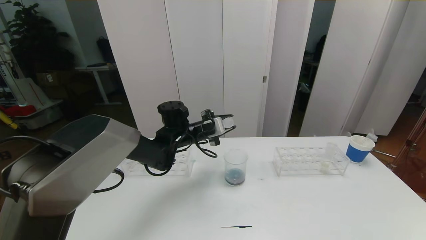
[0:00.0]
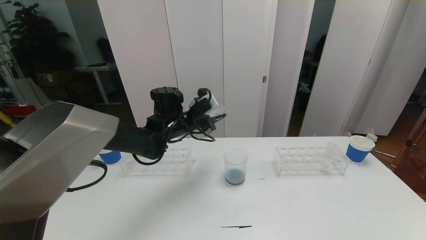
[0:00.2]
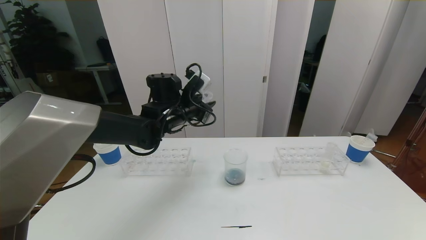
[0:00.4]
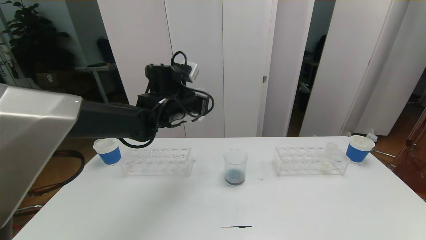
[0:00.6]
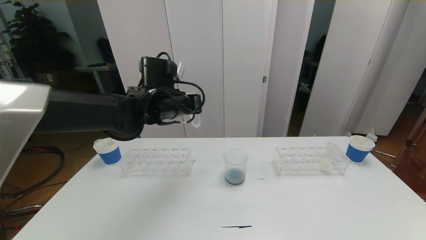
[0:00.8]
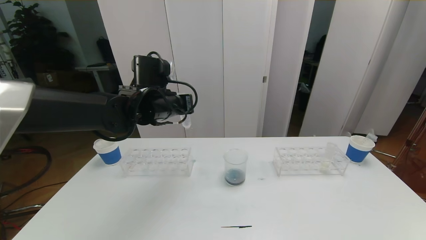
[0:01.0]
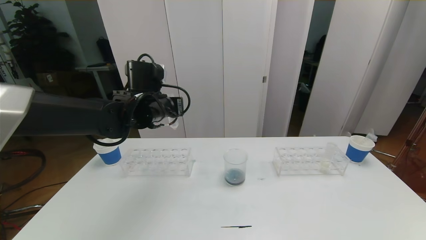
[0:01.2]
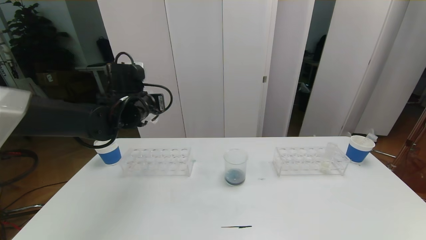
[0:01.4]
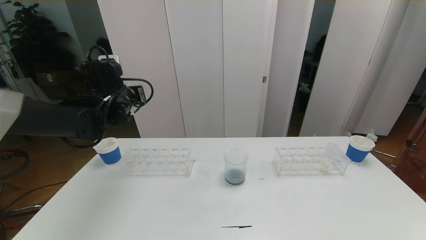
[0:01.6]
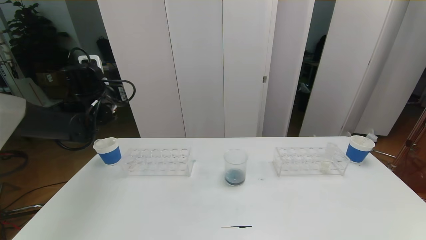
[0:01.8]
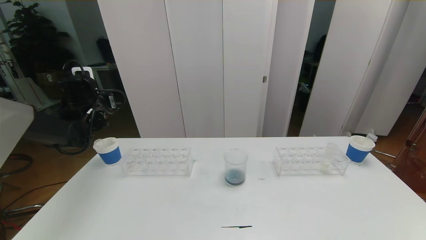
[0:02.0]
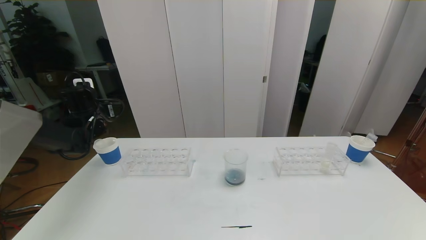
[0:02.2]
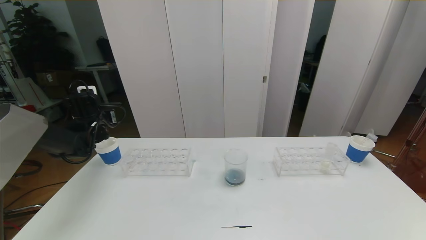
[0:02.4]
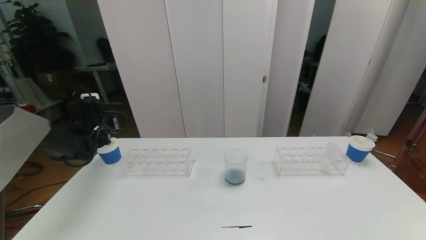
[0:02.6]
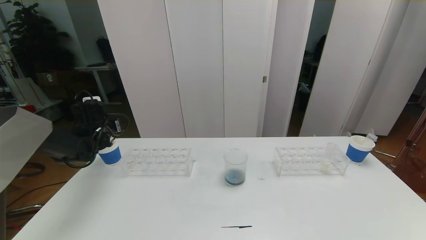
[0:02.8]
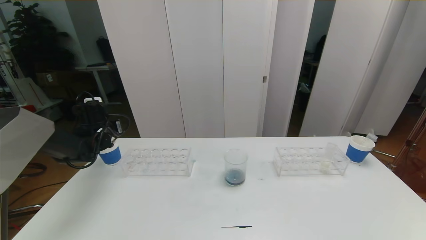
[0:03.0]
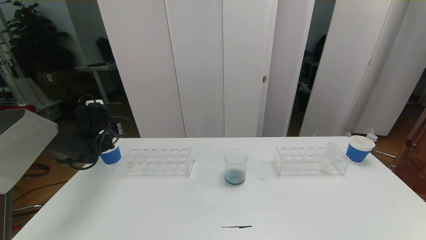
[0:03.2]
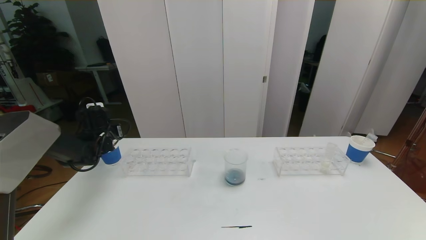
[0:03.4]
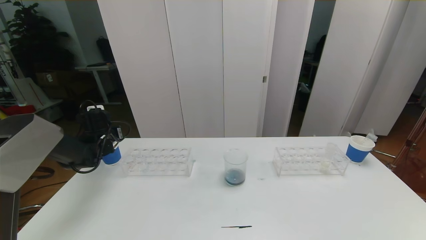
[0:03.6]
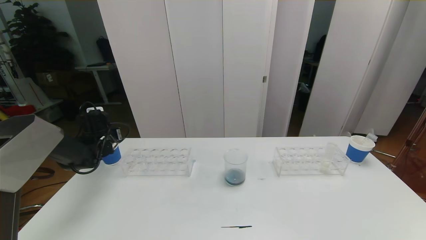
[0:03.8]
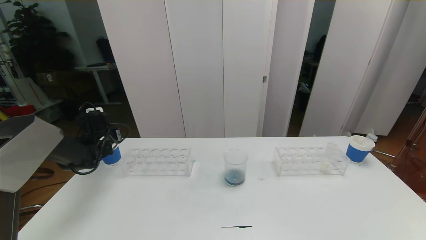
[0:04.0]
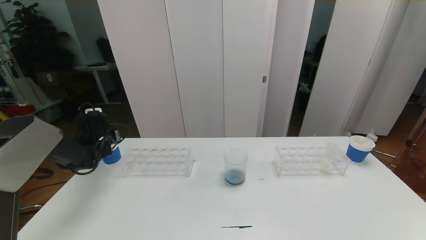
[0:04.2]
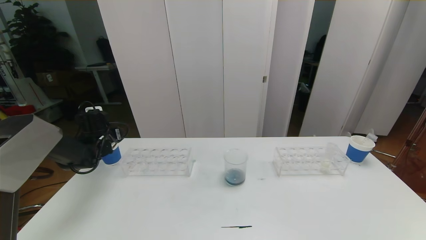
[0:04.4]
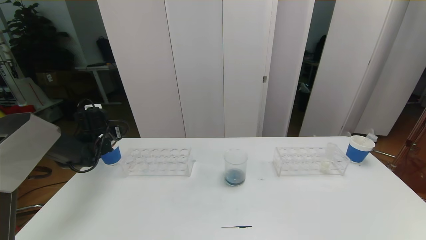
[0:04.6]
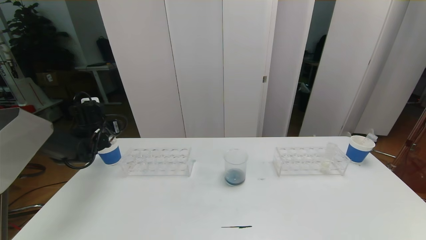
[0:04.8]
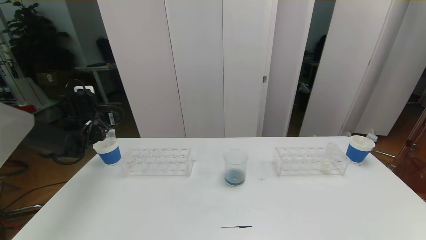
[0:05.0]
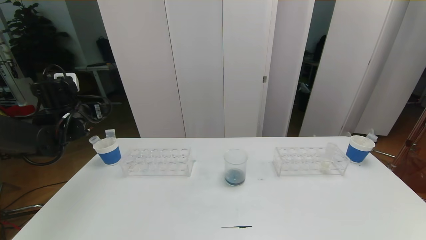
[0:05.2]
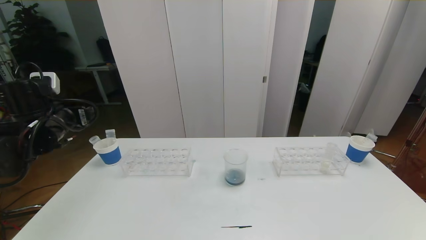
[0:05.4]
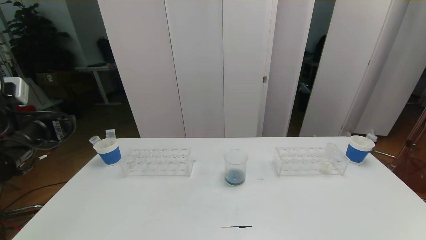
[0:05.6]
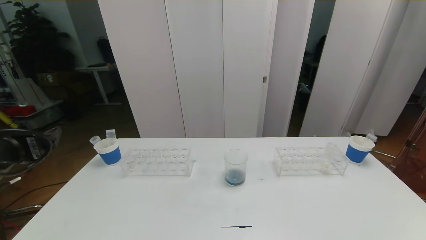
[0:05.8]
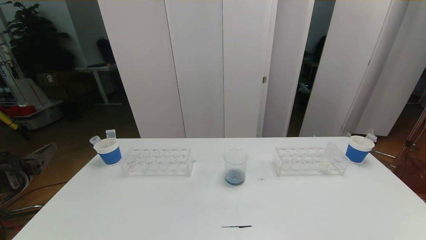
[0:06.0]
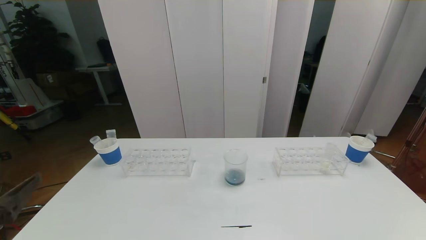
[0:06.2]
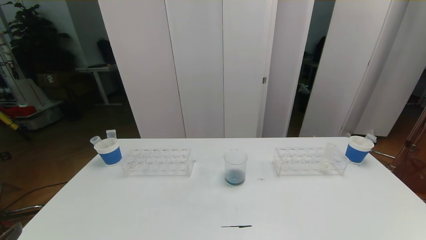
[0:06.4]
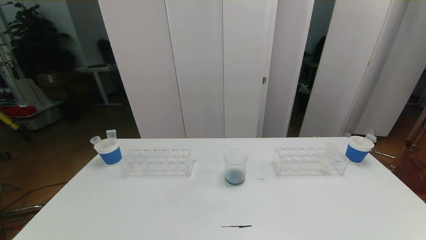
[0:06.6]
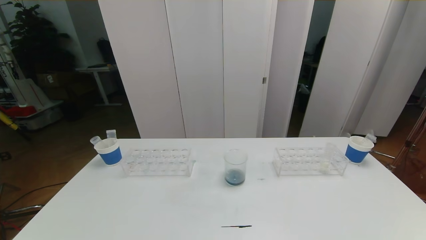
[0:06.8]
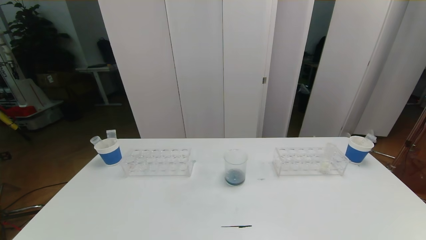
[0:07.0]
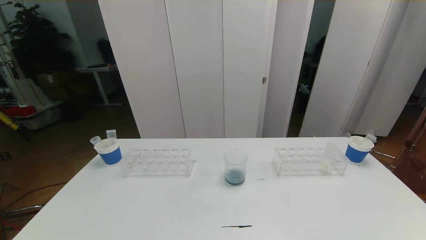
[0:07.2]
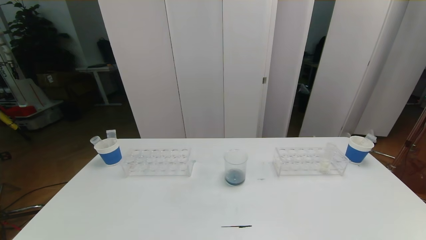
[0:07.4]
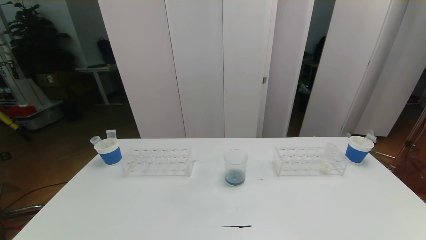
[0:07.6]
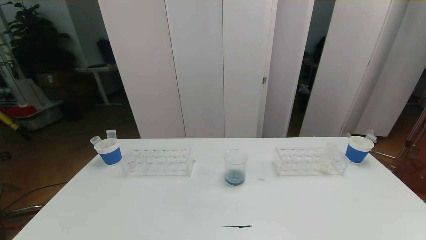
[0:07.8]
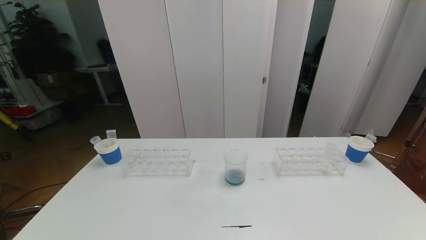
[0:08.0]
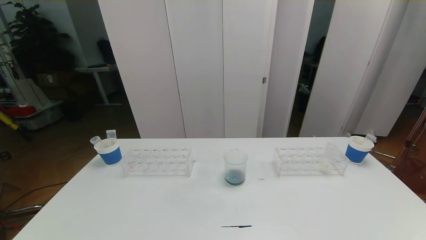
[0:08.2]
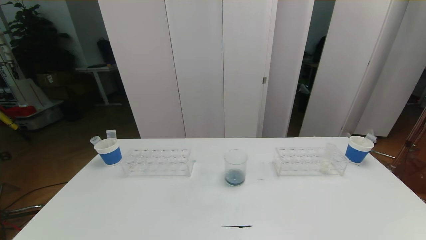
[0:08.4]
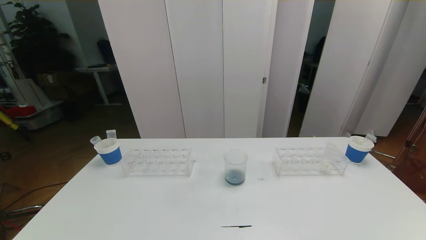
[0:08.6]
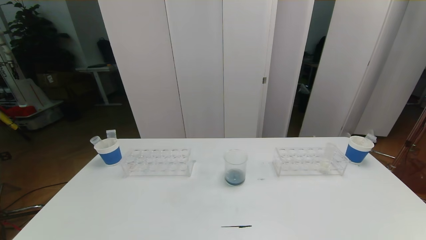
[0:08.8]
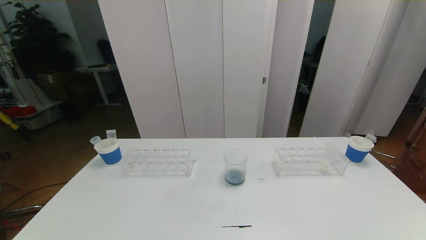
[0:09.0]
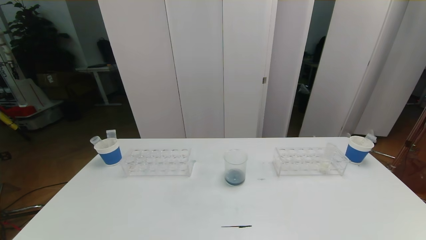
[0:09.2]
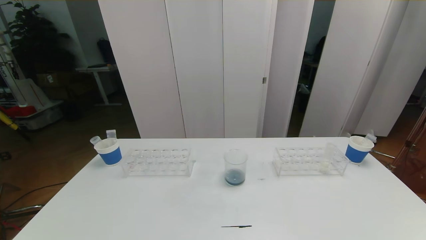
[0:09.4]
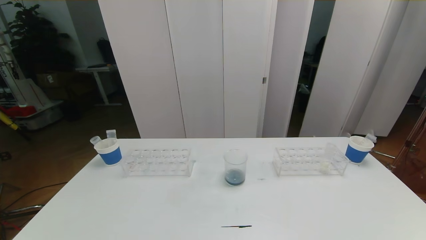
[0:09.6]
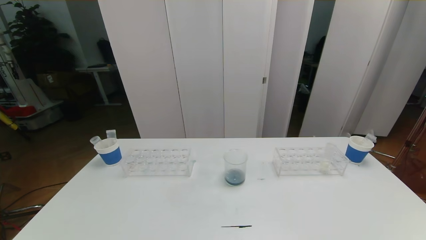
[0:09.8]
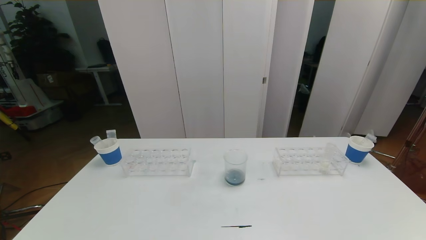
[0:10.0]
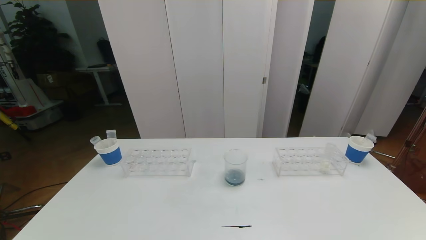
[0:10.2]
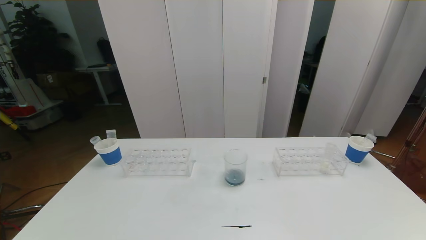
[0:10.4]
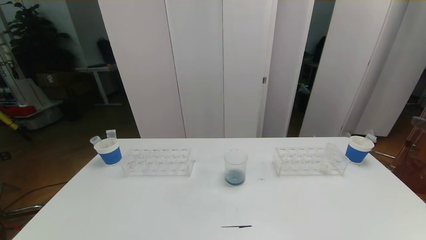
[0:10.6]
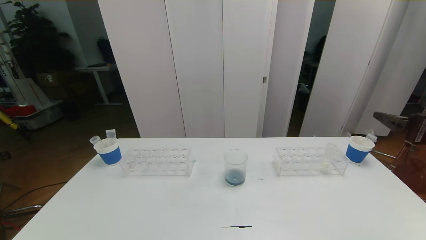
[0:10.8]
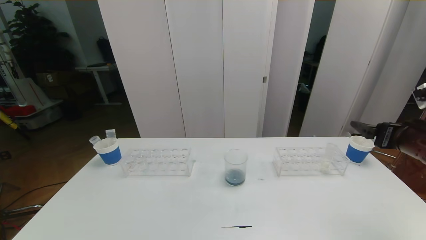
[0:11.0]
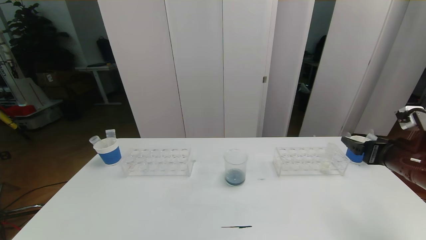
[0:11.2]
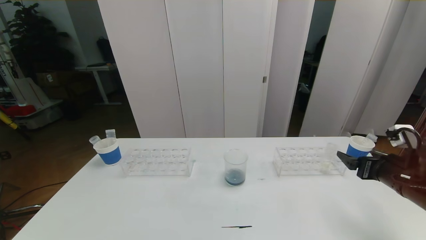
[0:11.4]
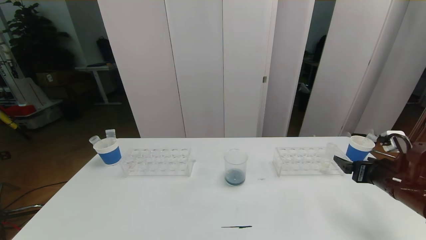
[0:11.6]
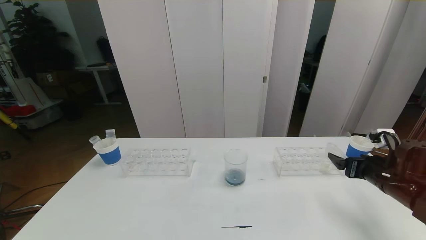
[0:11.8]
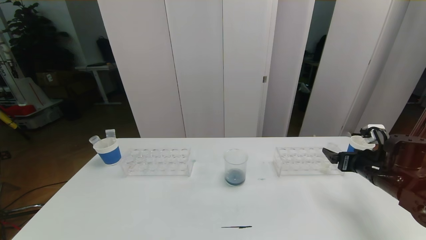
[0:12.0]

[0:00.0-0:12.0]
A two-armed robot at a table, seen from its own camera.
Task of the whole recording: pick up the test tube with red pigment the test tube with blue pigment and the test tube with white pigment by grippers and pour them into the beaker.
Step, 0:00.0 to 0:08.2: Pour the orange reagent into the graduated cylinder and place the test tube into the paper cup.
0:00.0 to 0:01.6: The left gripper heads to the left and upward, covering approximately 20 cm.
0:01.6 to 0:03.0: The left gripper moves downward and to the left, roughly 15 cm.
0:03.0 to 0:04.4: The left gripper opens its fingers.
0:04.4 to 0:06.0: The left gripper shifts approximately 35 cm backward and upward.
0:10.4 to 0:12.0: The right gripper heads forward and downward, covering roughly 30 cm.

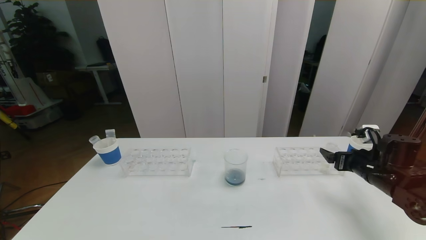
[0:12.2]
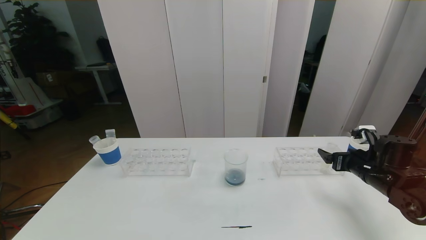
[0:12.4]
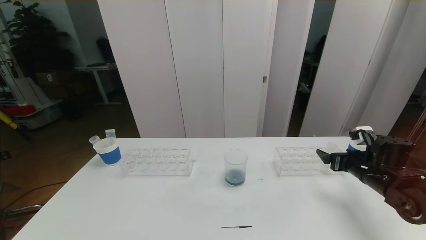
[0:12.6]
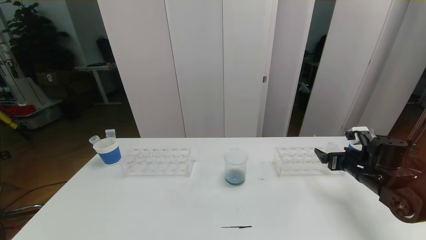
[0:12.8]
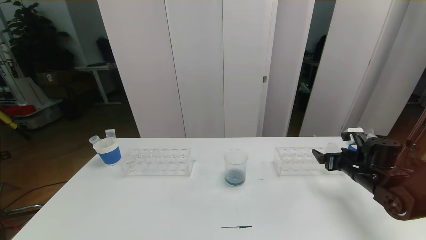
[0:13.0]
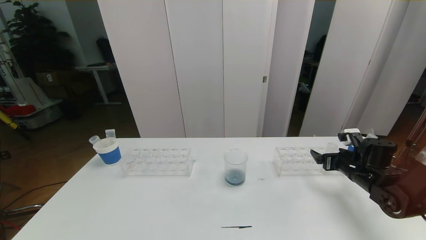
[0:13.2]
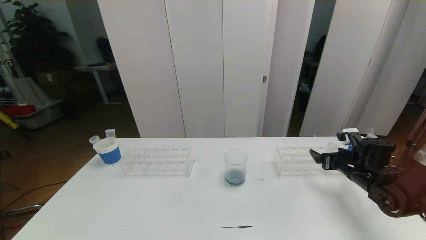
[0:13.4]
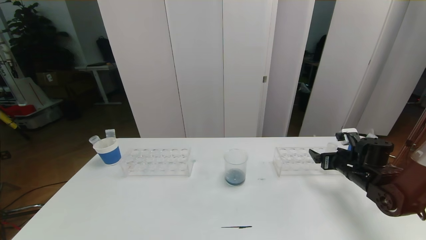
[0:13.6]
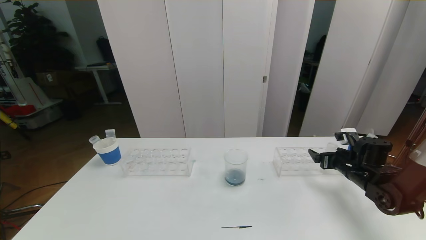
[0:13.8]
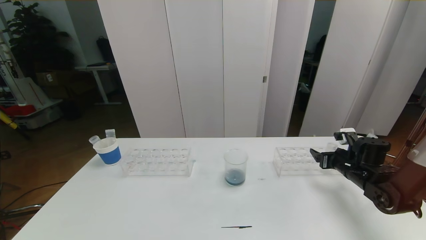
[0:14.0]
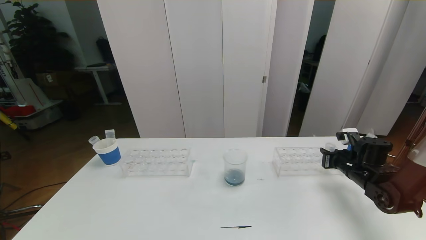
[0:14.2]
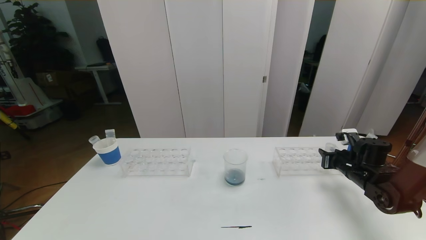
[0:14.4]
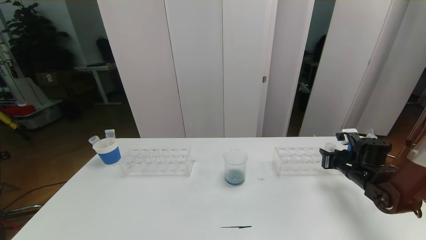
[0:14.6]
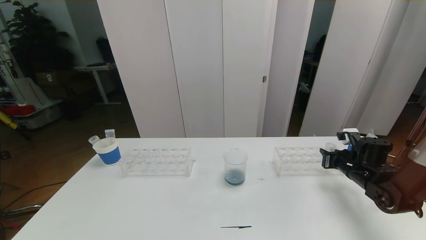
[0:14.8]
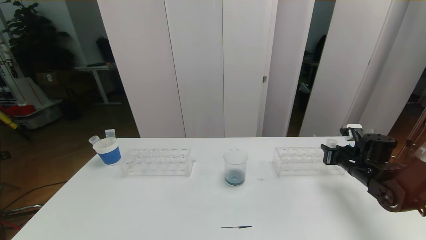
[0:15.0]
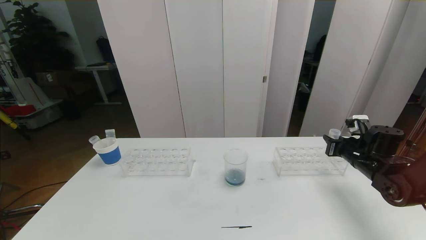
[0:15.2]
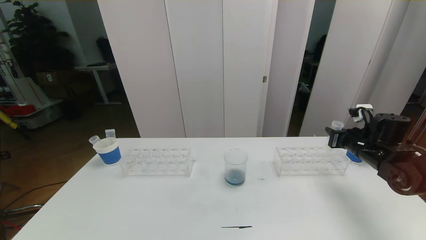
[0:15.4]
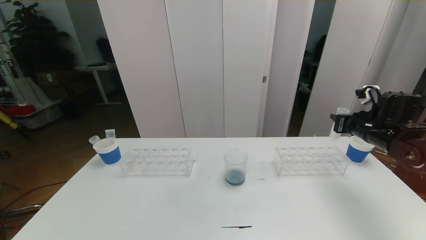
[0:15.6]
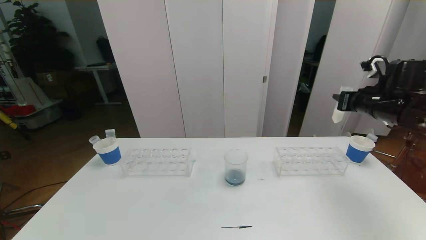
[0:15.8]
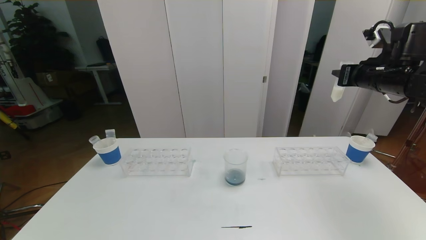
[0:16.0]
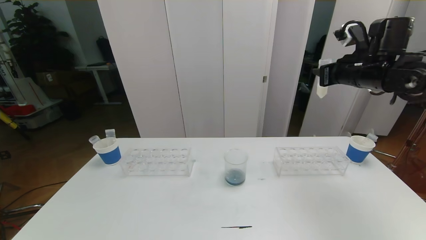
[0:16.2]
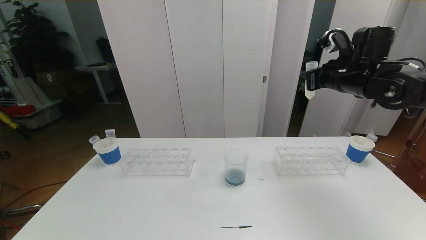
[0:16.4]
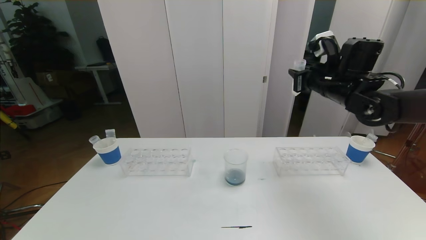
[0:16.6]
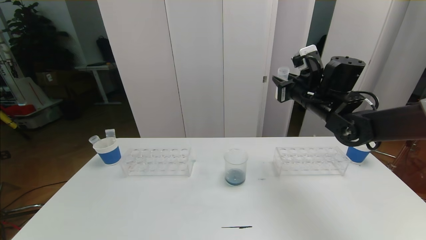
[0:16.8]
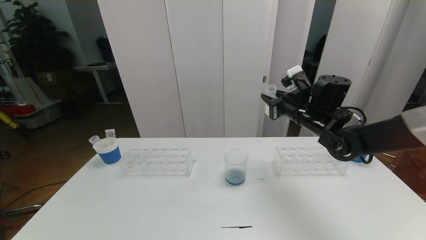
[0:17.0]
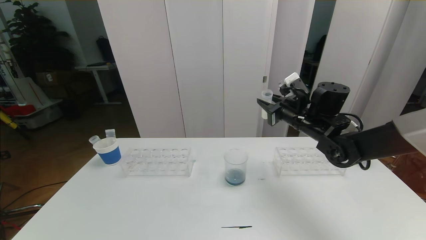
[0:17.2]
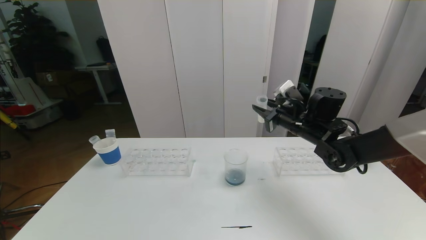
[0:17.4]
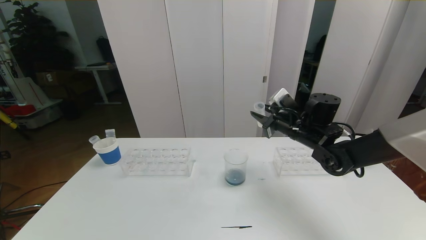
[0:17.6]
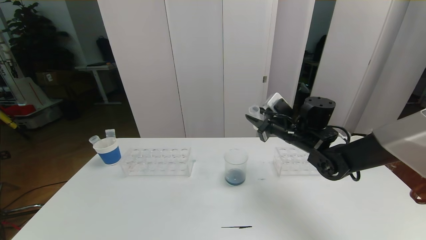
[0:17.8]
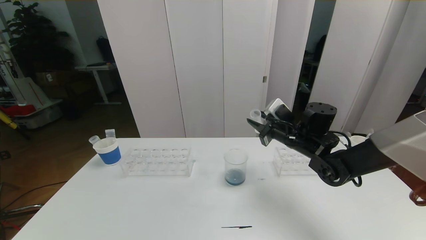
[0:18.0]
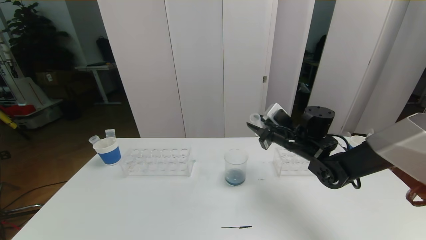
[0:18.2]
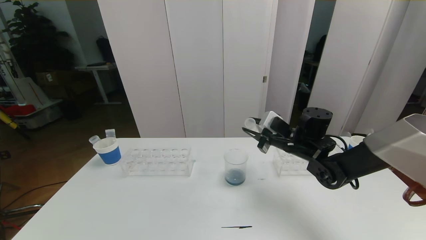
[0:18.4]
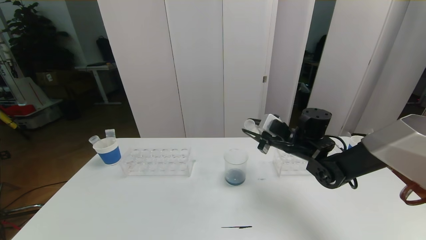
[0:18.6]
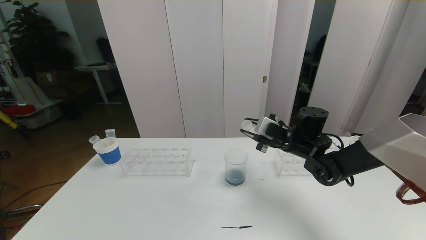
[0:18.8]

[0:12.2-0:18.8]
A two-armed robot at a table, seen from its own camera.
Task of the whole recording: pick up the test tube with red pigment the test tube with blue pigment and the test tube with white pigment by grippers and pour them into the beaker.
0:12.2 to 0:13.8: The right gripper shifts by approximately 5 cm.
0:13.8 to 0:15.4: The right gripper goes some 5 cm upward, and closes its fingers.
0:15.4 to 0:17.2: The right gripper is displaced to the left by roughly 15 cm, and reaches about 15 cm upward, then returns.
0:17.2 to 0:18.8: The right gripper shifts some 5 cm downward.
